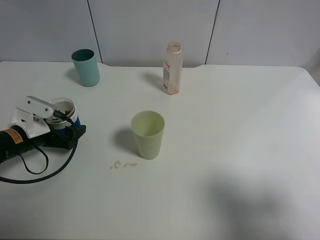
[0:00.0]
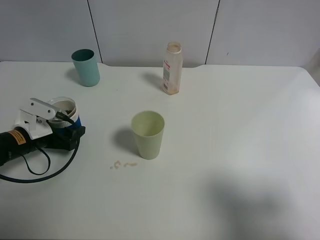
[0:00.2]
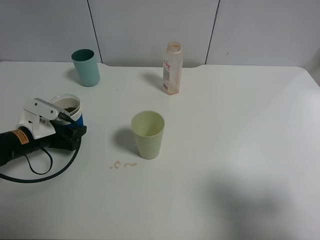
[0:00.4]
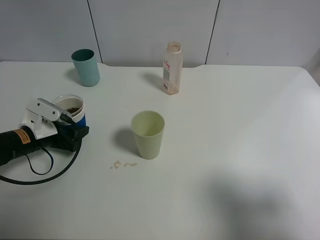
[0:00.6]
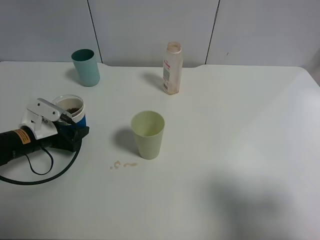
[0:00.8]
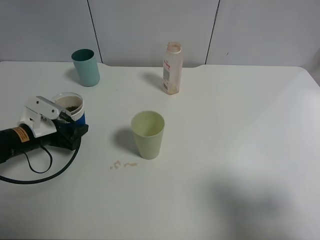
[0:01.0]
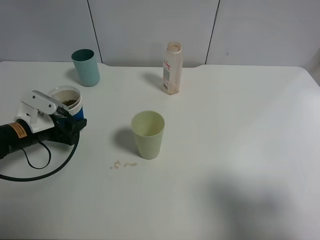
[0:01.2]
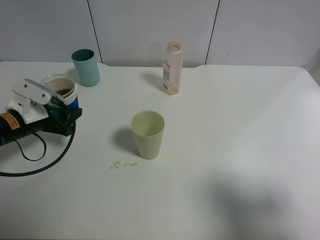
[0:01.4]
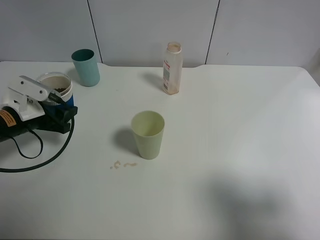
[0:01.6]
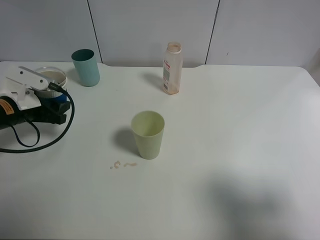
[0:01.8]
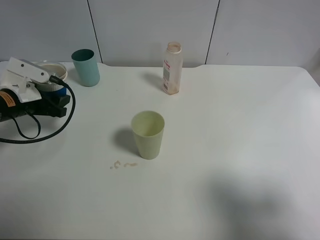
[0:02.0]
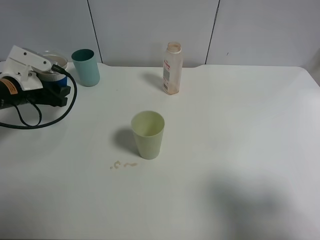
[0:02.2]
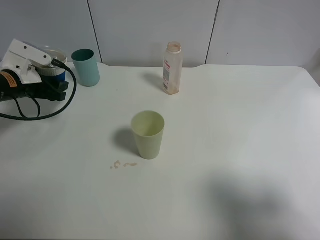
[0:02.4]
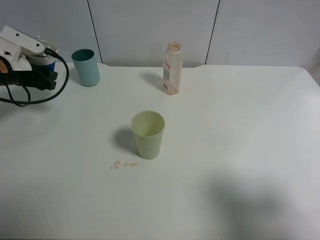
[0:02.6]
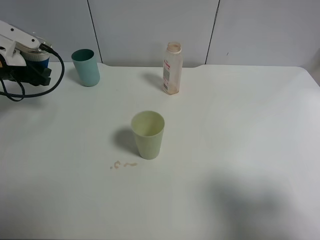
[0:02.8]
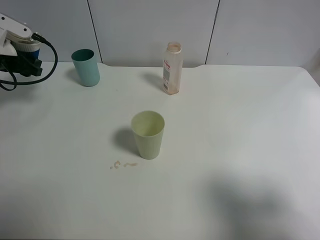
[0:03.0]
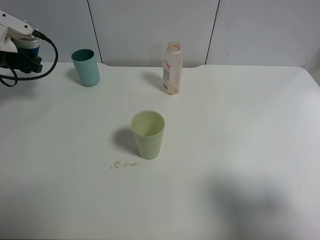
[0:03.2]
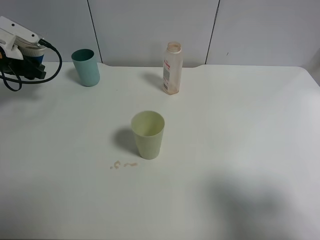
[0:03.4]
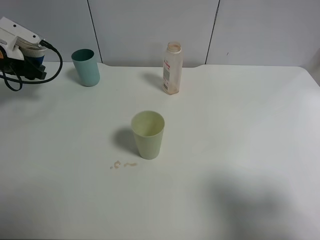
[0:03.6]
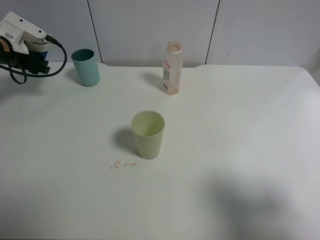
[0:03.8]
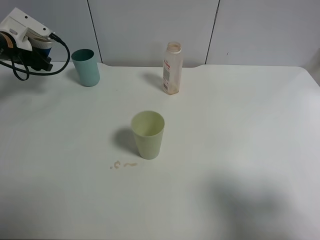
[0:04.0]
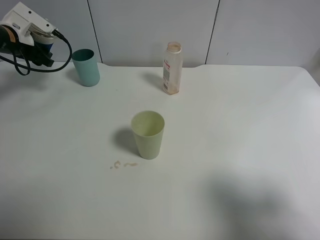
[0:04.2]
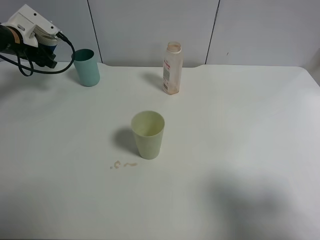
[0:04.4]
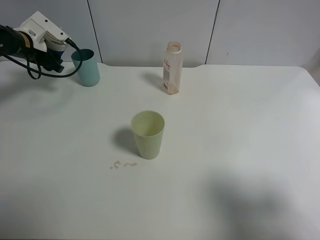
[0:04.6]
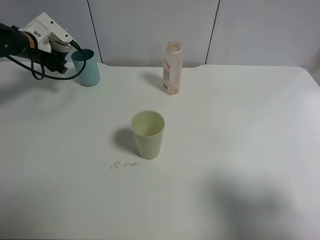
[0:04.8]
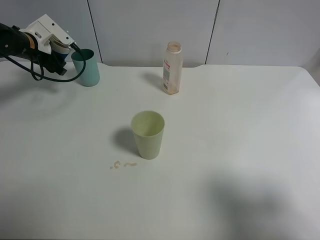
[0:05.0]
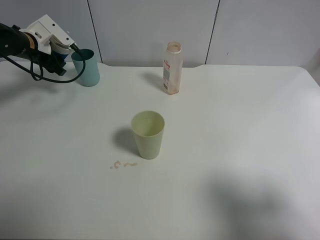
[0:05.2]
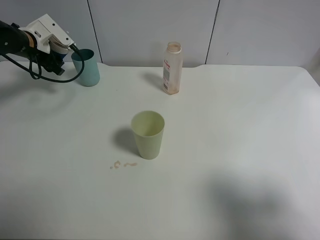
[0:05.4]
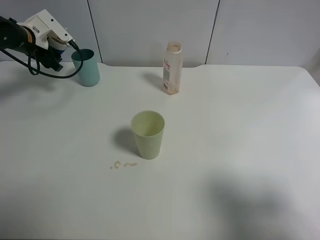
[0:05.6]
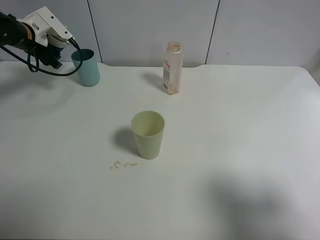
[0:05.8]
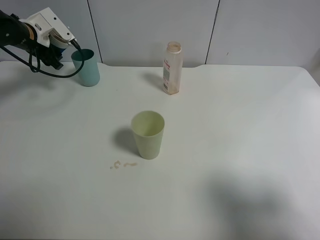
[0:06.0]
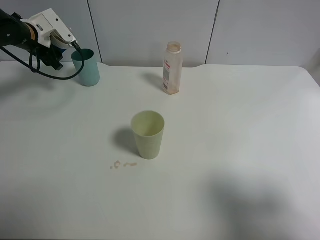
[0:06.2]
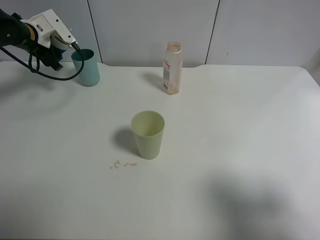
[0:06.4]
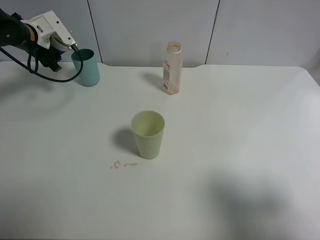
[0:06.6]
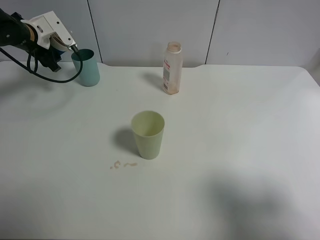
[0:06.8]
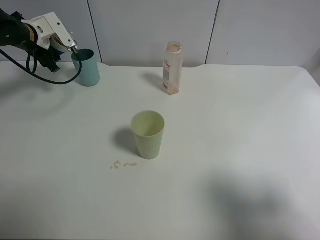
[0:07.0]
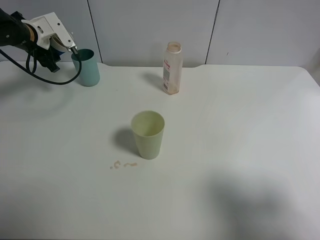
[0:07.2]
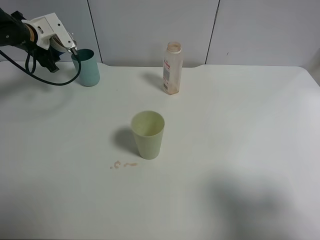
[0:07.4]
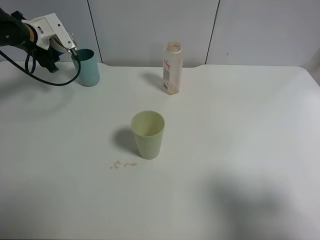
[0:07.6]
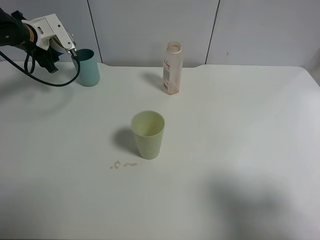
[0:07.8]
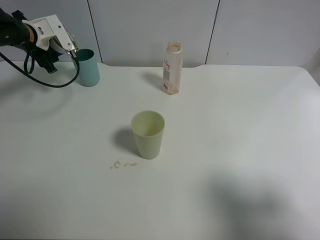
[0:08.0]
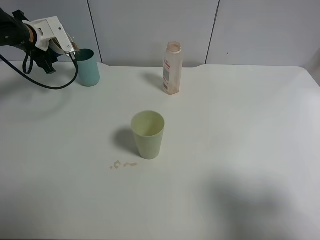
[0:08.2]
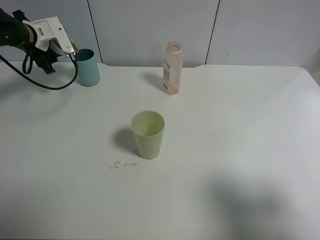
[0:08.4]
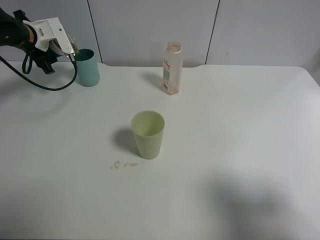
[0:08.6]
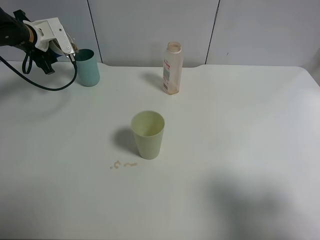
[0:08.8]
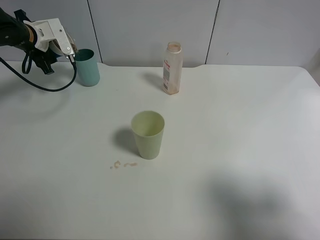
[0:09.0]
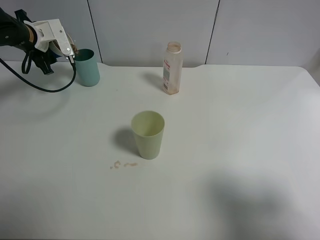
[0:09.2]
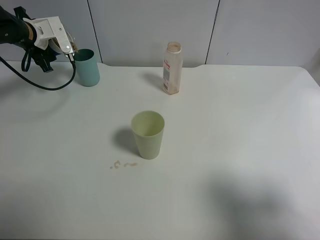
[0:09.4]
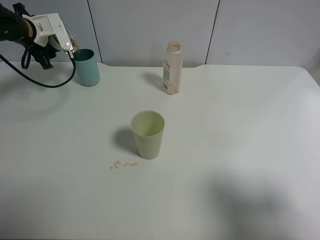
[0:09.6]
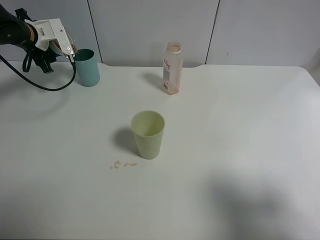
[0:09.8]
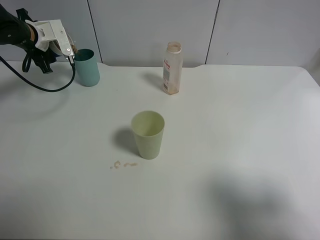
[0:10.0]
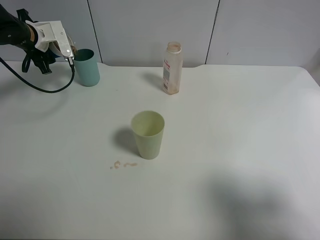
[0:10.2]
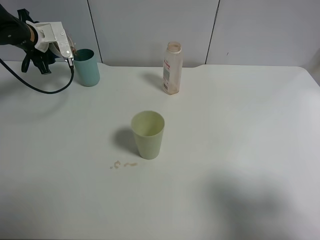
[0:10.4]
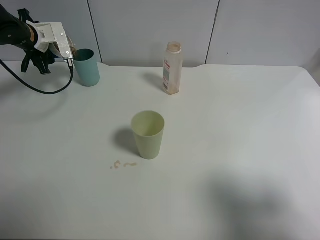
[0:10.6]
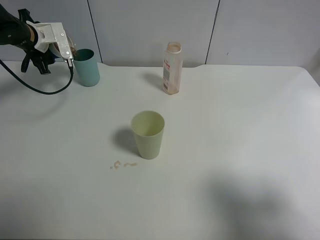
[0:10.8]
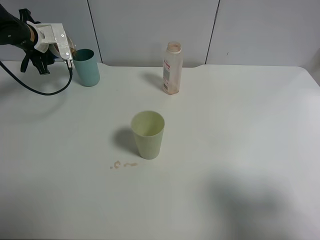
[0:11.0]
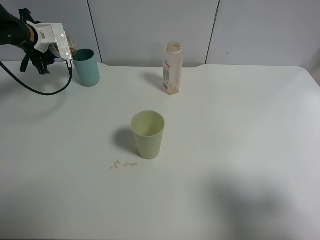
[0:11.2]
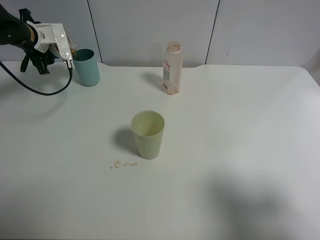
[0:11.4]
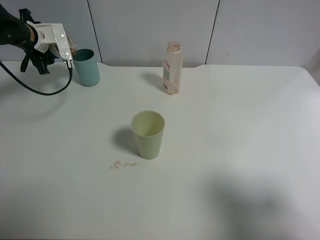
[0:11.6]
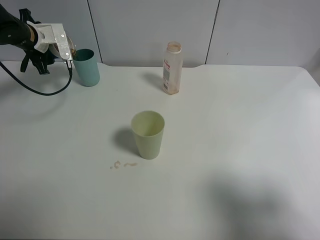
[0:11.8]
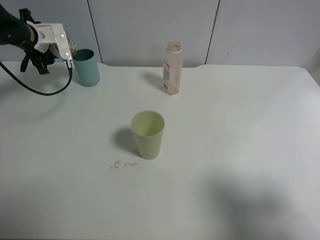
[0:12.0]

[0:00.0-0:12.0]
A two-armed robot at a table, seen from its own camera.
Task of the whole recording: use a clamp to hold the bottle of the drink, pour the beverage into a random cup, then clamp the cup containing the drink and pour the drink into another random cup.
0:00.0 to 0:01.6: The left gripper closes its fingers.
0:01.6 to 0:03.0: The left gripper is displaced forward, upward and to the left by approximately 15 cm.
0:03.0 to 0:04.4: The left gripper goes some 5 cm forward.
0:04.4 to 0:06.0: The grippers move only a little.
0:06.0 to 0:09.0: The grippers make only small movements.
0:09.0 to 0:10.4: There are only small adjustments of the grippers.
0:10.4 to 0:12.0: Both grippers stay put.

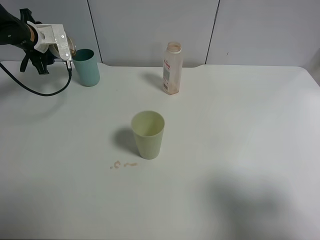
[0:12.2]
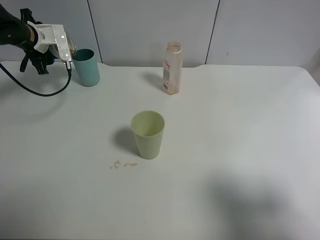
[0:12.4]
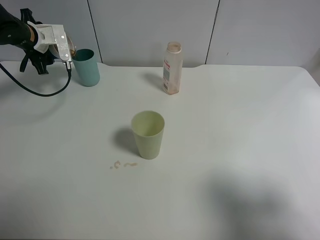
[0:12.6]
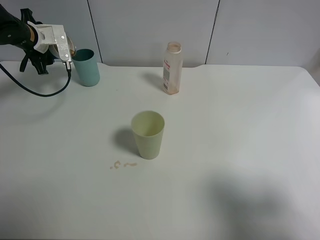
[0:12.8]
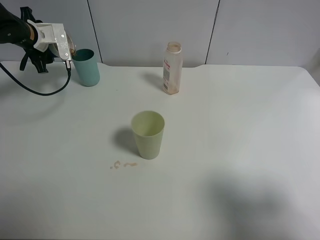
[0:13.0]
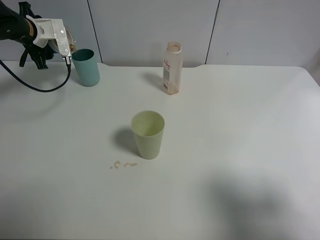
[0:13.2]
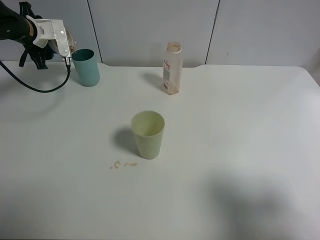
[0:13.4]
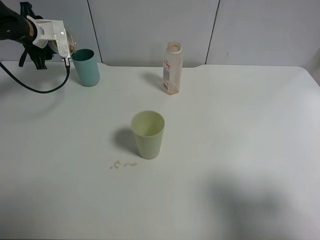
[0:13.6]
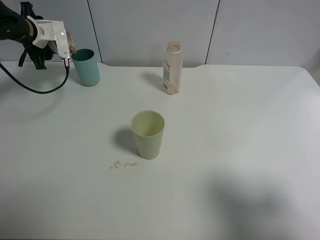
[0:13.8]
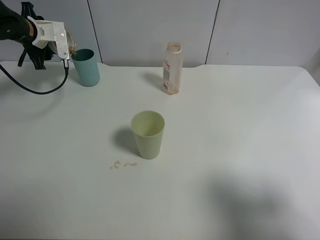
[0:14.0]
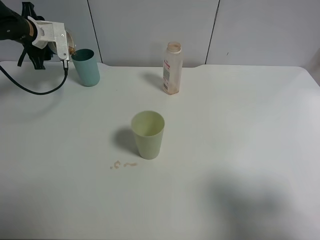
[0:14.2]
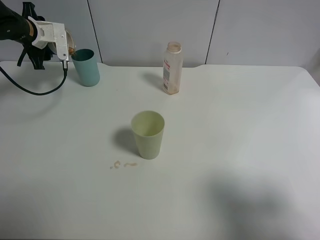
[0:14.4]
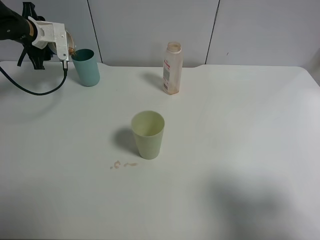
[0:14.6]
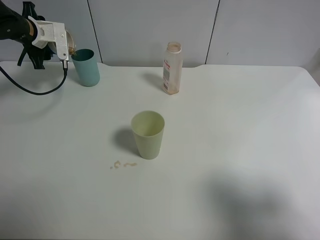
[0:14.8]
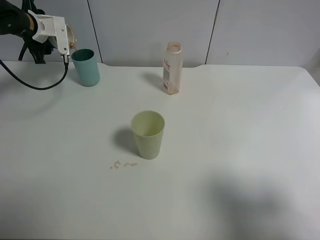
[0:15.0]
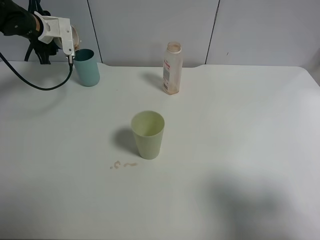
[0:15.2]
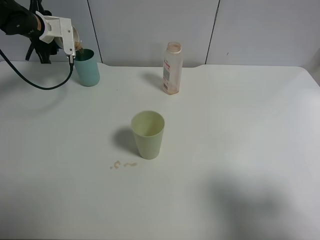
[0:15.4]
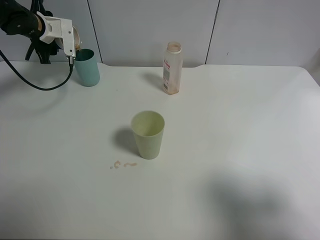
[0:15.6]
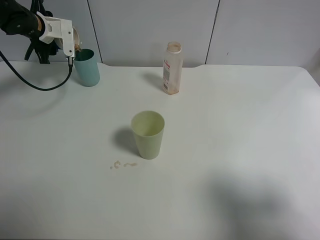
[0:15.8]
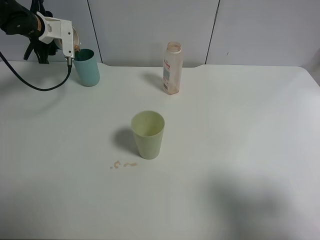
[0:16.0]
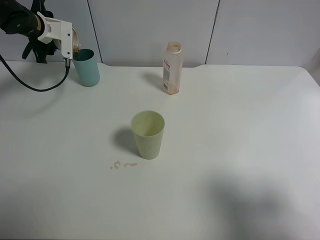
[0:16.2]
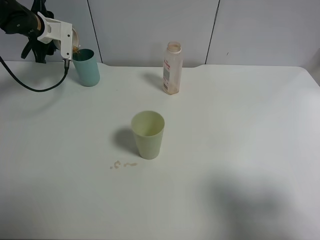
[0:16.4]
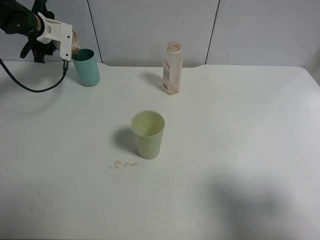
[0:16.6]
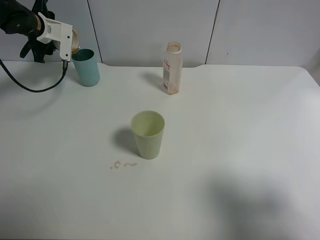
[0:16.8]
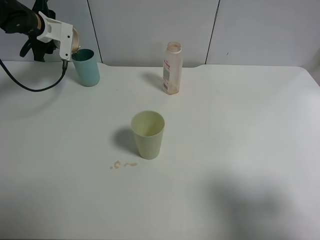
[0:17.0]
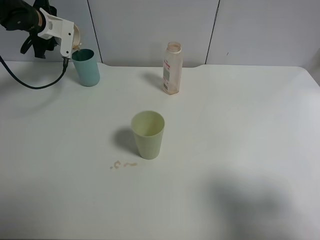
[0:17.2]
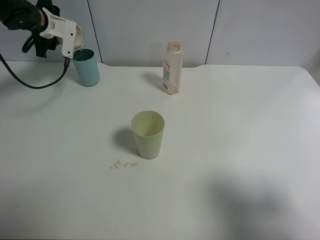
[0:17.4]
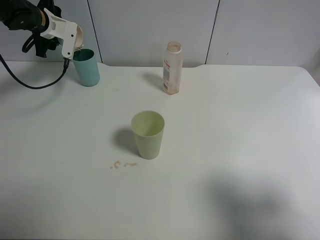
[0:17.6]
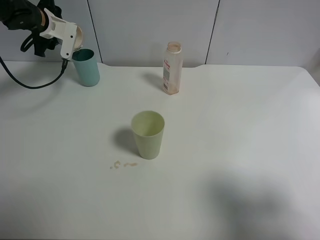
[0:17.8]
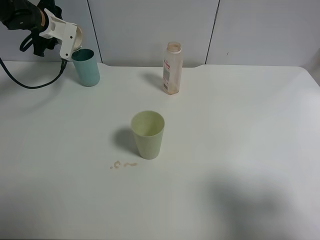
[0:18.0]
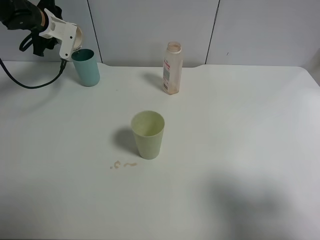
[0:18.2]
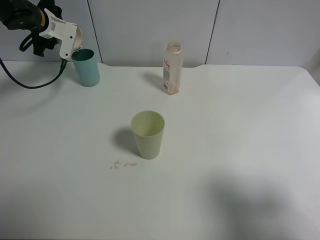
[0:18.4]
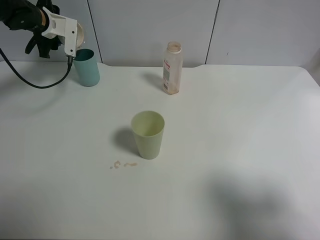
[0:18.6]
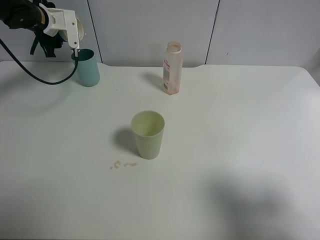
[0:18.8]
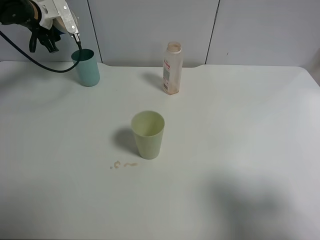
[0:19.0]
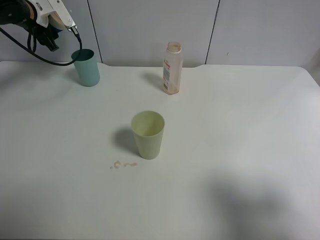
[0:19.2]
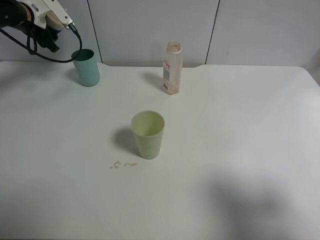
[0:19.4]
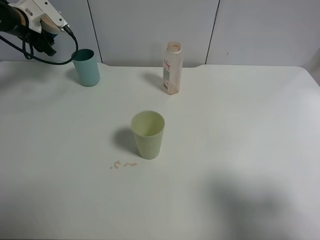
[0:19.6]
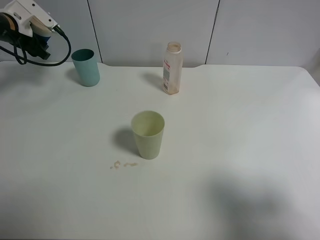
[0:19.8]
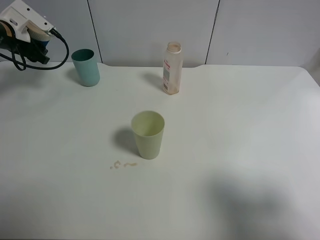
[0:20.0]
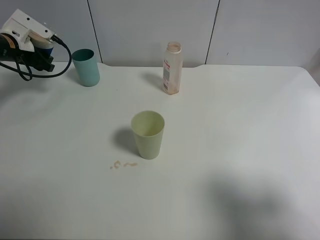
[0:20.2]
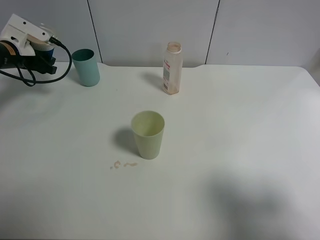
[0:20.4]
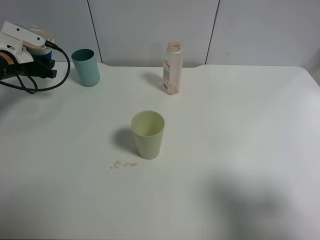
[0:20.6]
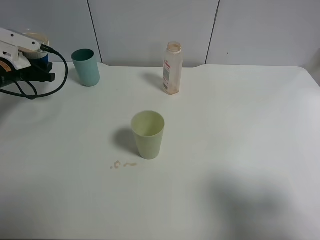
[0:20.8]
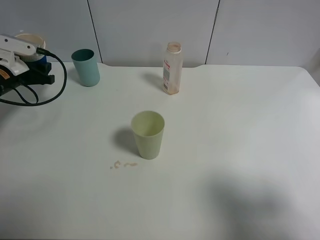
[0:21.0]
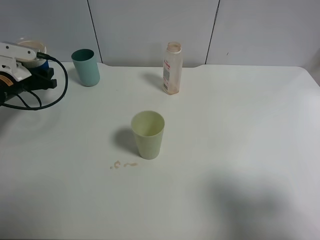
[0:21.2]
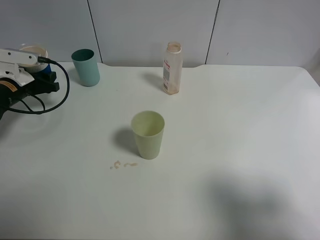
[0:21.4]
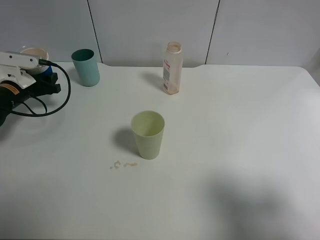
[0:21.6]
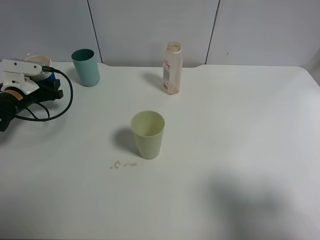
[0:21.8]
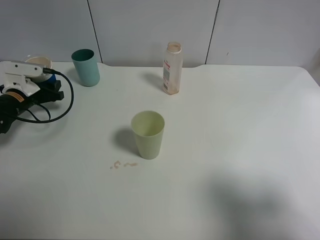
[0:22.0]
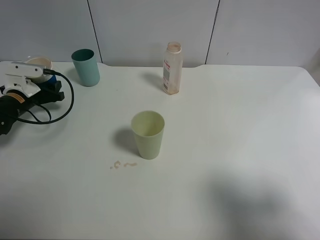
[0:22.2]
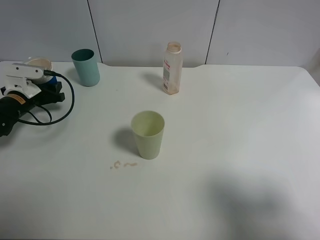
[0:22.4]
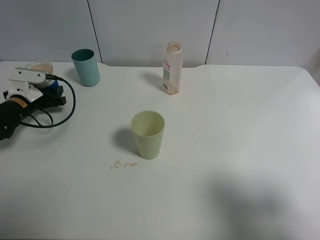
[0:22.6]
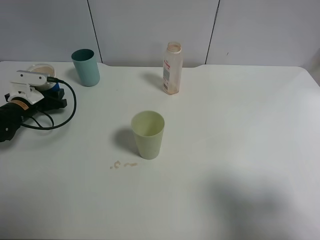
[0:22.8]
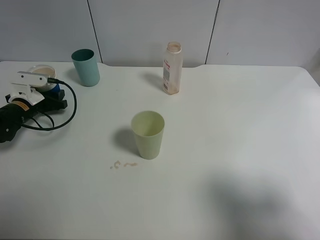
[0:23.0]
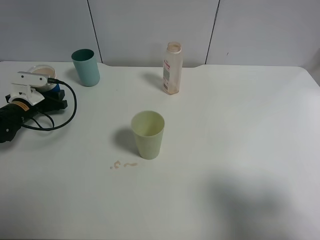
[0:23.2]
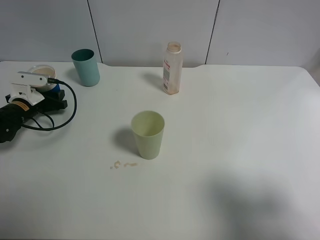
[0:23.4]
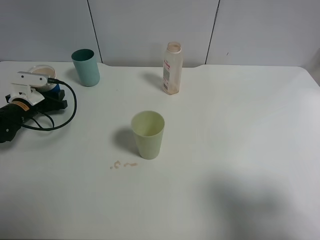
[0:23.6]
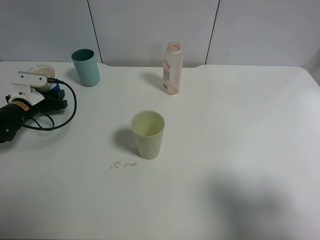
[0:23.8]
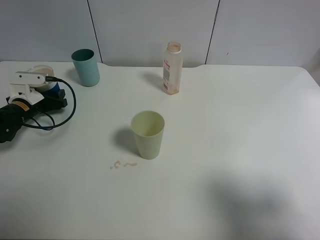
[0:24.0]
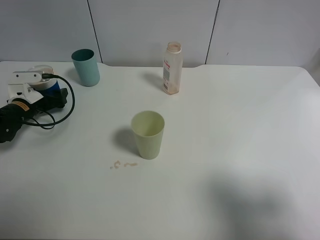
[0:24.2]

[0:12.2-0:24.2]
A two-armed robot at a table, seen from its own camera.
Task of the whole recording: use a clamp to hold the bottle of the drink, pour the beverage into a random cup, then clamp the cup containing the drink and pour the drink into another random cup.
0:12.2 to 0:15.2: The grippers make only small movements.
0:15.2 to 0:16.6: The grippers move only a little.
0:16.6 to 0:18.2: There are only small adjustments of the grippers.
0:18.2 to 0:19.8: The left gripper moves to the left, roughly 5 cm.
0:19.8 to 0:21.2: The left gripper travels backward and downward by roughly 15 cm.
0:21.2 to 0:22.6: The left gripper travels downward by approximately 5 cm.
0:22.6 to 0:24.2: The left gripper opens its fingers.
